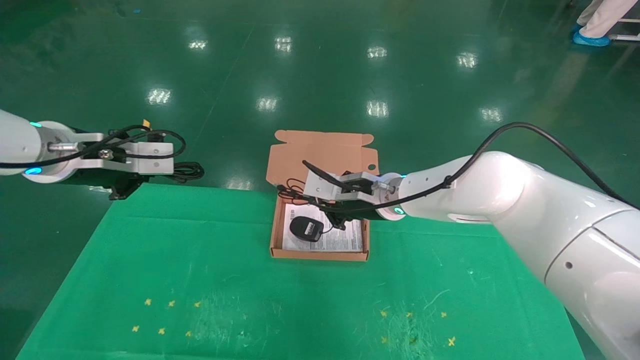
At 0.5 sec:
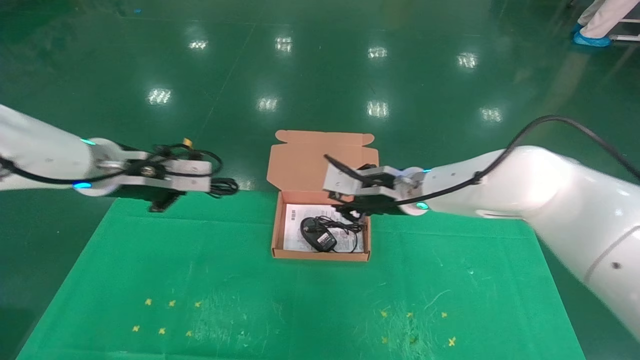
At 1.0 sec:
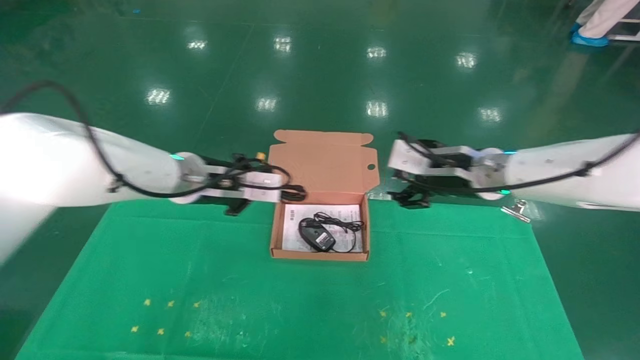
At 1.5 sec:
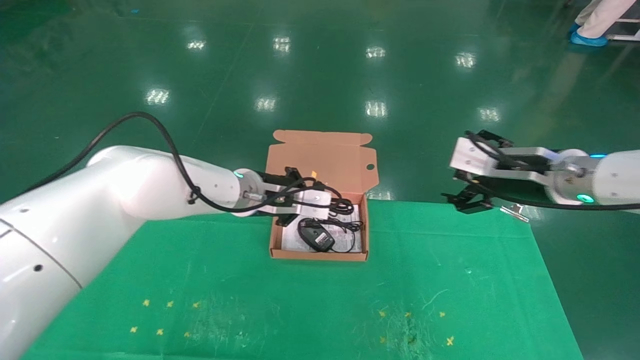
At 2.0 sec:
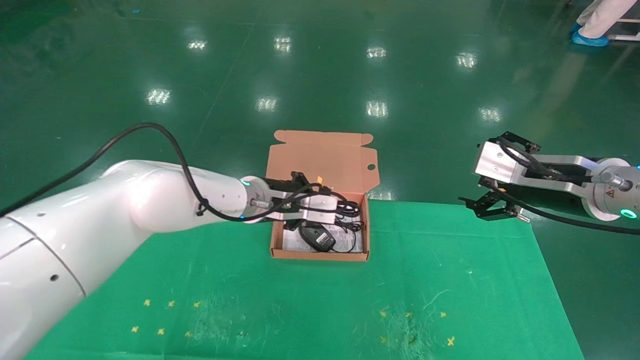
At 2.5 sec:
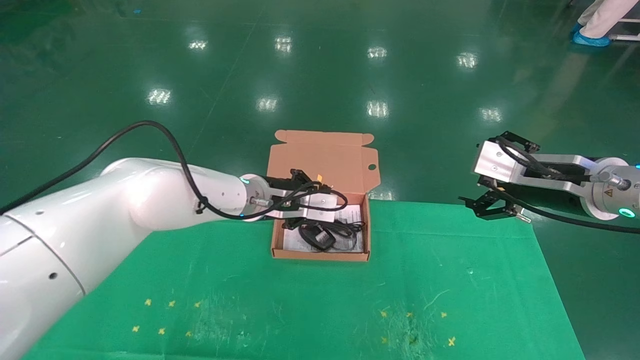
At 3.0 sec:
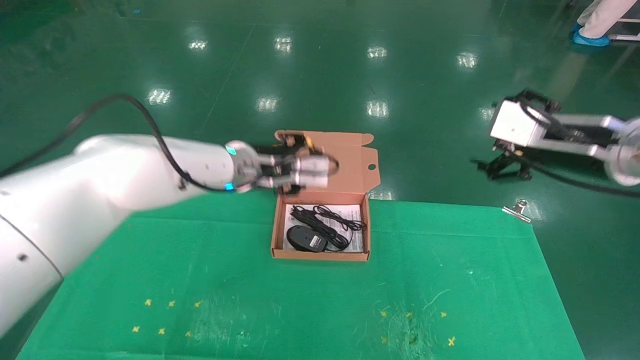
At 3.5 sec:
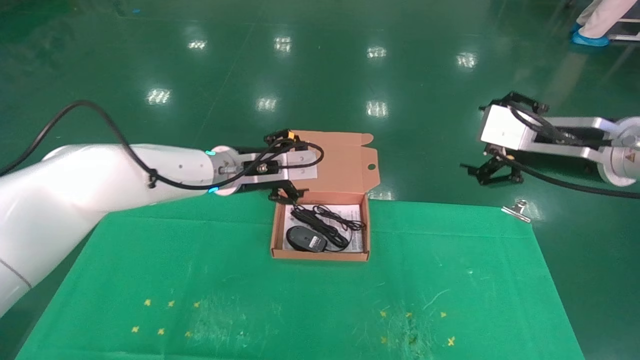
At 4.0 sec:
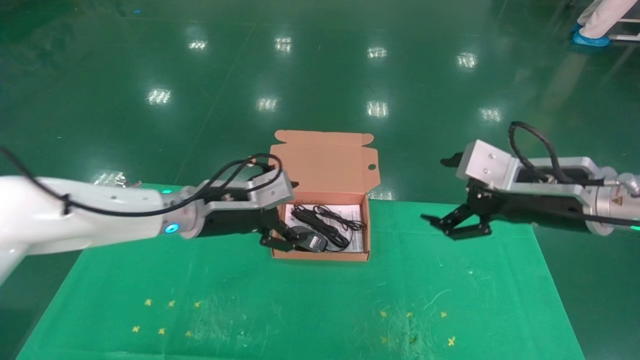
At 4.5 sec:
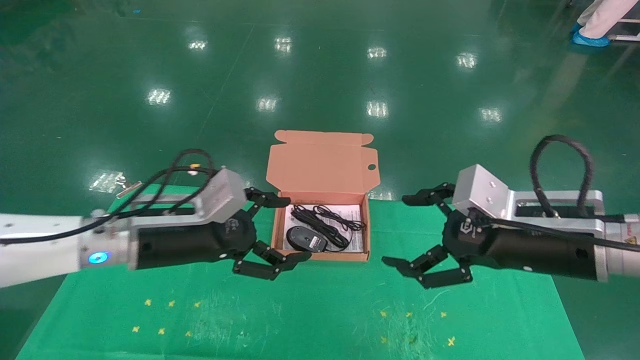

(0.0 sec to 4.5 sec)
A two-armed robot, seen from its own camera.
Task of the whole recording: grasp data cable left put into box grasp mouse right put into box.
Step, 0.0 sec - 3.0 sec: Place the mouse and power cord into the box.
0.0 sec - 2.0 sec: The left gripper shifts some 25 cm to the right, downward and forward. Meanwhile the right gripper shifts about 25 cm to the right and backward, and opens up.
2.0 sec - 4.5 sec: The right gripper heads backward and to the left, covering roughly 10 cm. The left gripper moves backward and to the left, approximately 15 cm, and opens up.
